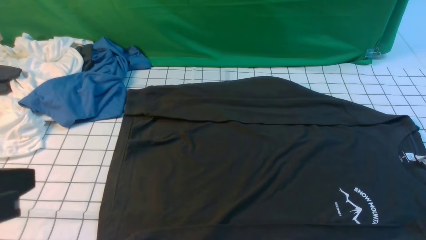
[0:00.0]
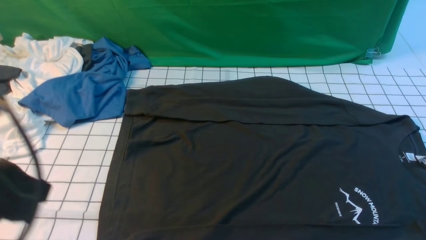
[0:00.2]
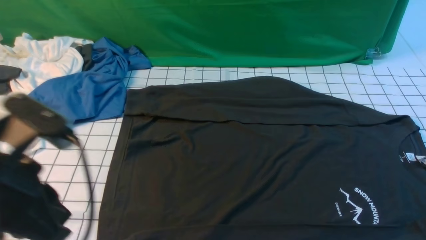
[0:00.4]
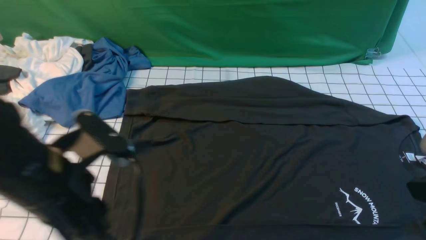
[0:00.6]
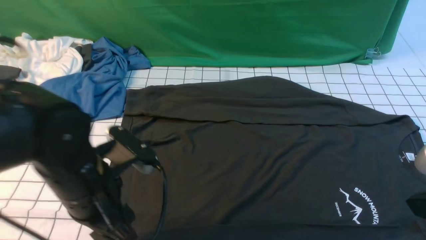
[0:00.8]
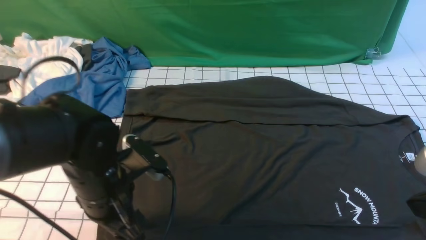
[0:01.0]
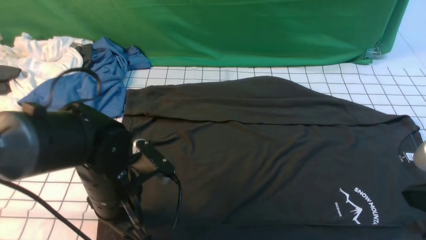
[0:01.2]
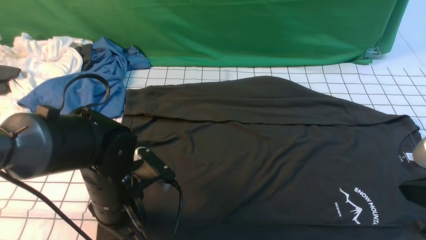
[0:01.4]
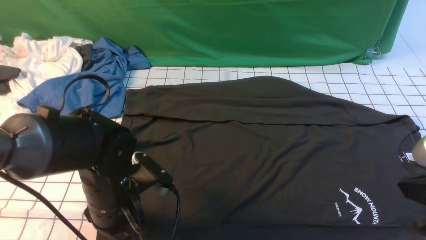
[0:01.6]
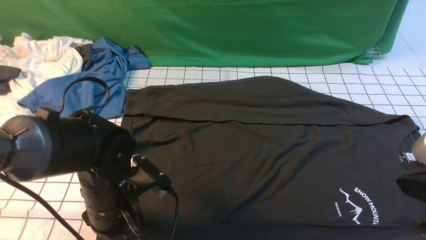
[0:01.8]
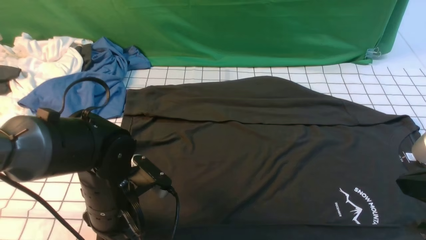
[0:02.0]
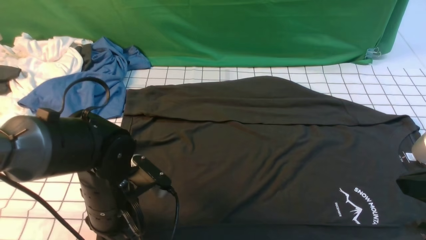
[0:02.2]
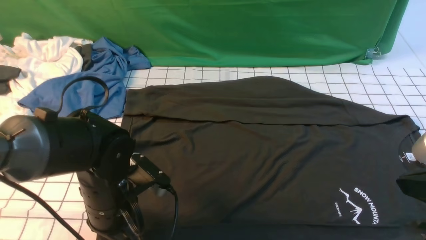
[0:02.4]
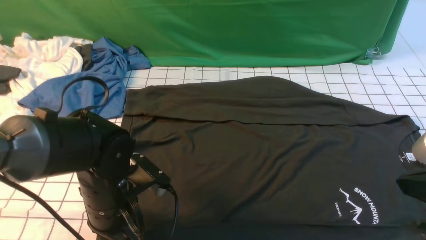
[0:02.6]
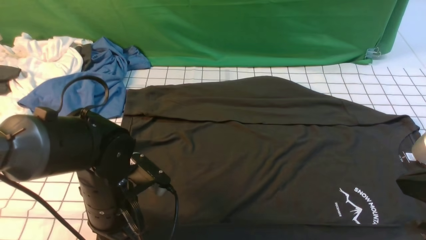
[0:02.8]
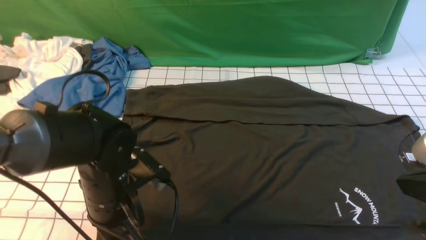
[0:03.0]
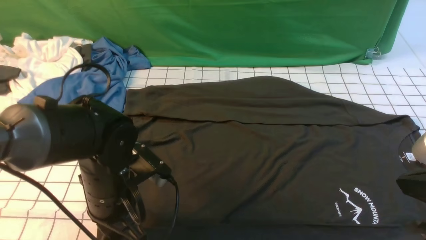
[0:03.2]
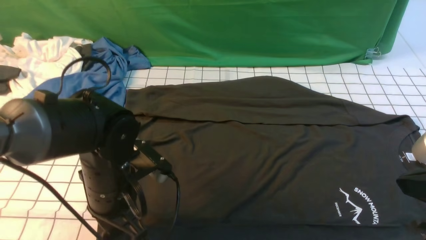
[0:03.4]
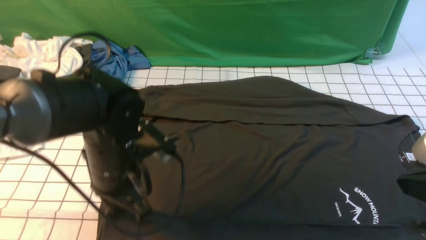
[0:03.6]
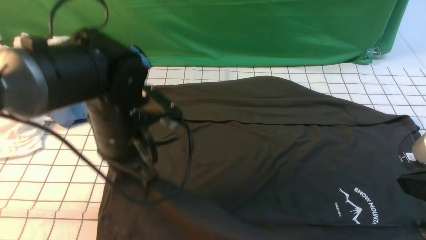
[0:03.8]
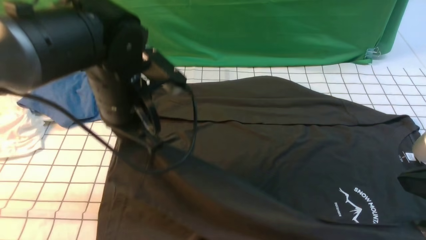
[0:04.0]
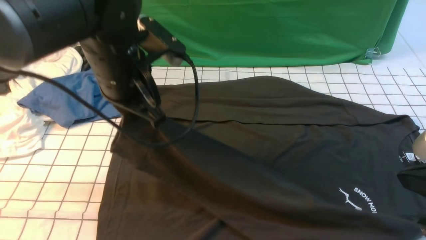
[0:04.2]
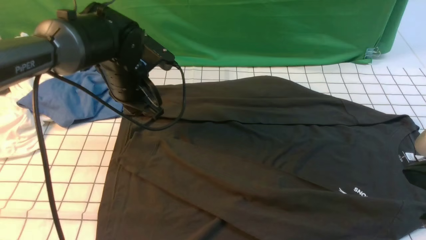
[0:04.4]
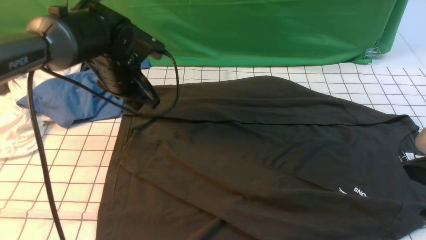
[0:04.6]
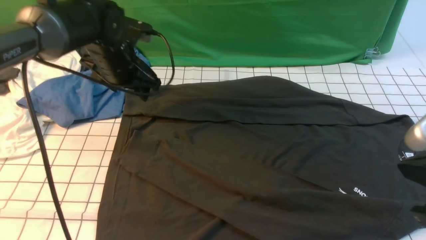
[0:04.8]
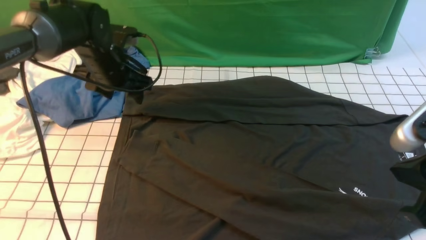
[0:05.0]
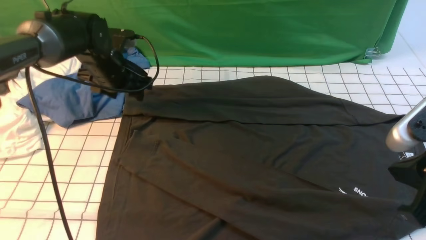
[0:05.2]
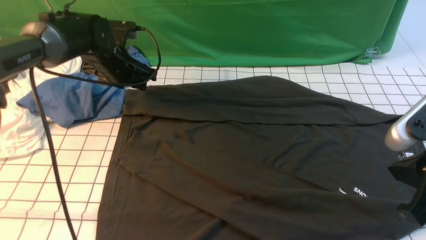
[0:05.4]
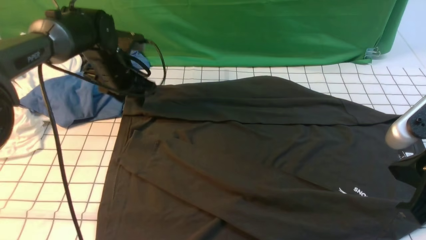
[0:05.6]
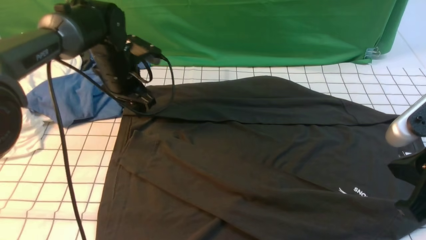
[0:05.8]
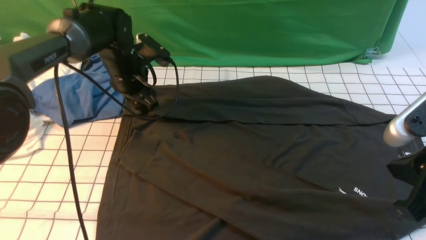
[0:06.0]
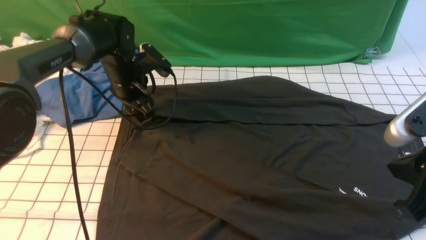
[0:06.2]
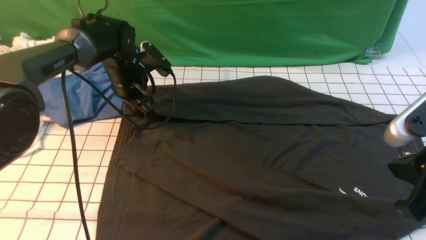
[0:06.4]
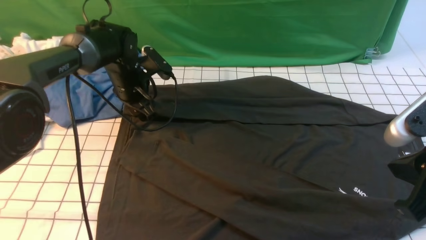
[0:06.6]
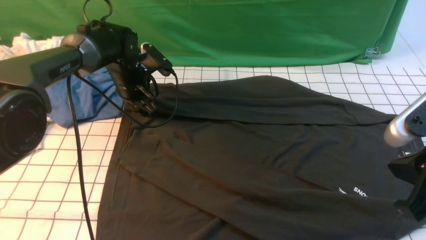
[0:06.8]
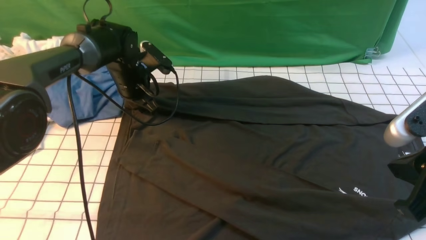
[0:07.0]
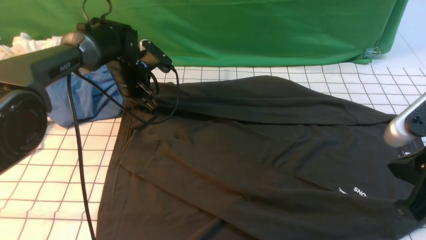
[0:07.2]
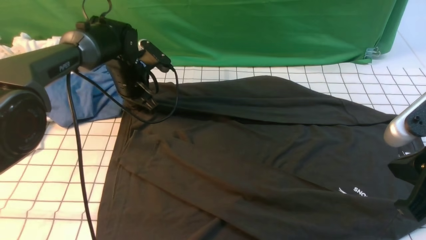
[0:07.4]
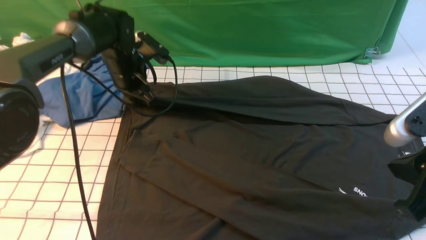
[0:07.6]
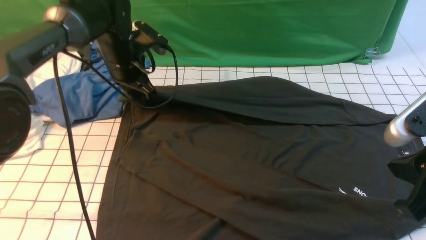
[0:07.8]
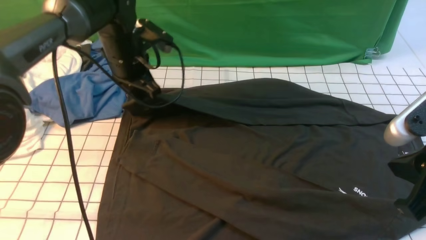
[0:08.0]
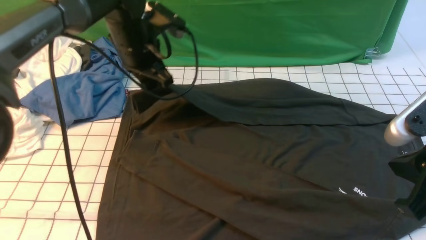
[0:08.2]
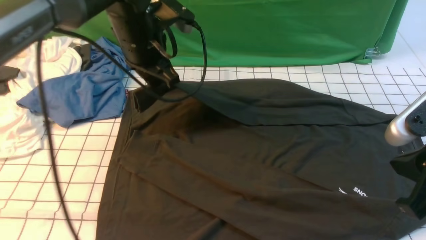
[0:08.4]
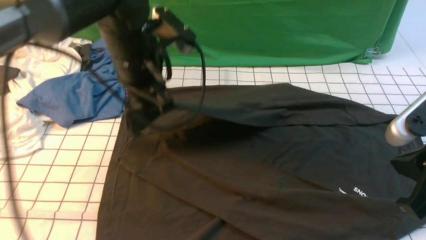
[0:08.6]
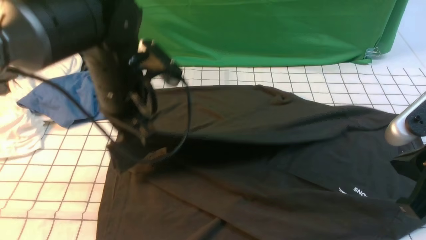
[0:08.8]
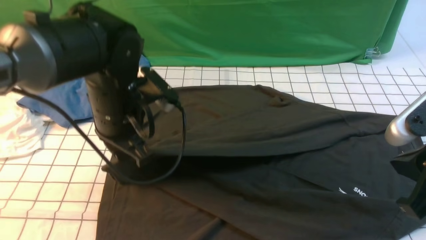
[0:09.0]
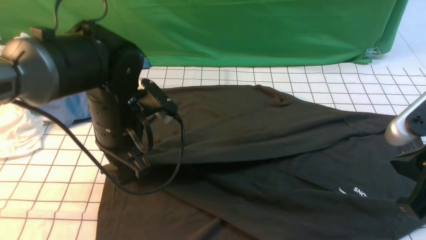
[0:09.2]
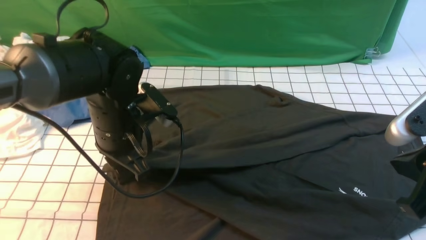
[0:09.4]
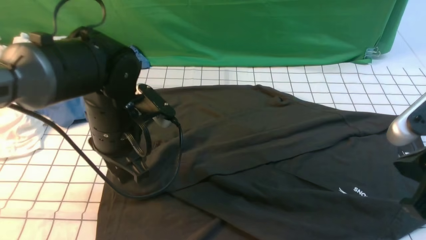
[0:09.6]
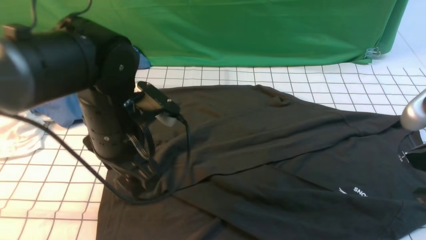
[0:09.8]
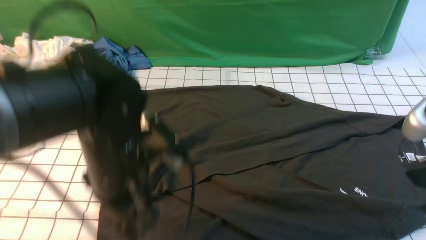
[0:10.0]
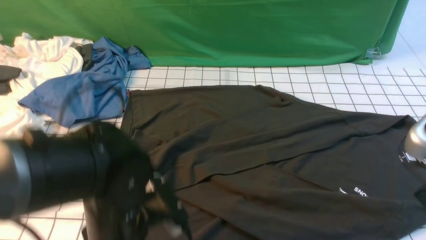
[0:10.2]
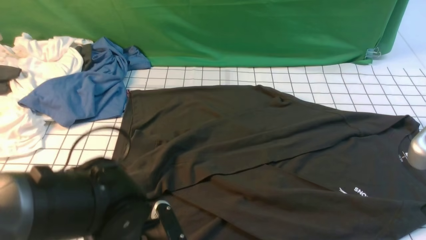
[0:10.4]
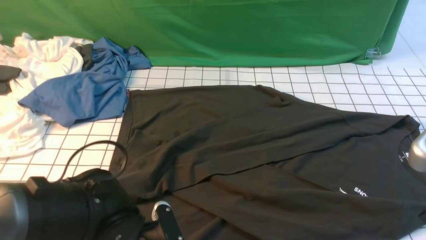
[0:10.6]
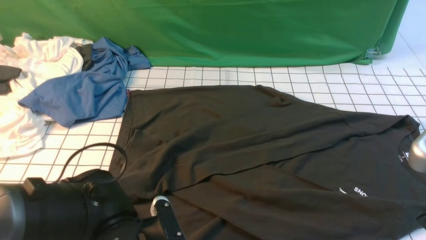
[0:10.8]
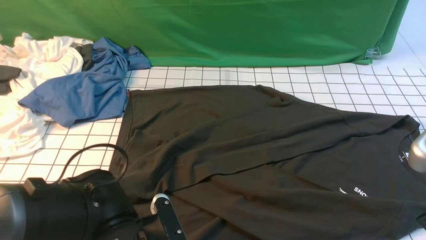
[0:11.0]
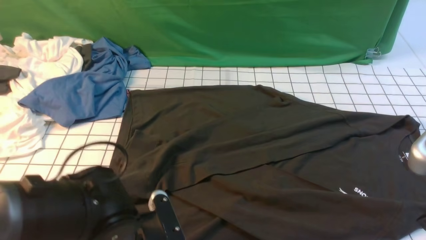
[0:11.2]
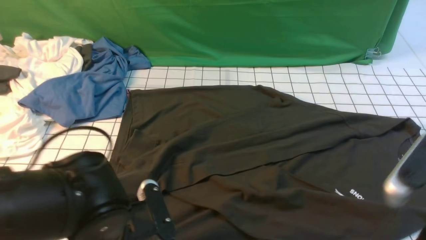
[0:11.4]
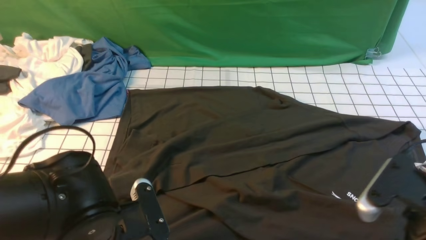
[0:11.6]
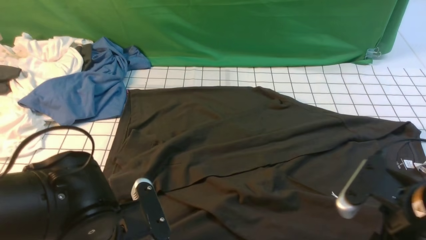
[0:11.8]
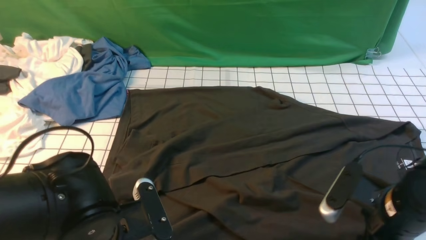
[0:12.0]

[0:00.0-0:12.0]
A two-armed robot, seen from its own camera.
Step, 0:00.0 to 0:03.4: use the left arm to clamp the cuff closest to it.
Step, 0:03.6 to 0:05.0: use the left arm to drag and place the cuff at the centered position on the left edge of the fabric.
Step, 0:05.2 to 0:07.6: use the left arm to clamp the cuff farthest from it.
Step, 0:07.8 to 0:09.6: use the left arm to drag and drop the cuff onto the cuff closest to the left arm.
0:00.0 to 0:01.6: The right gripper travels to the left by approximately 5 cm. The left gripper heads downward, forward and to the right, covering roughly 25 cm, and opens its fingers.
0:01.6 to 0:03.0: The left gripper closes its fingers.
0:03.0 to 0:04.4: The left gripper shifts some 15 cm forward and upward.
0:04.4 to 0:06.0: The left gripper heads forward and downward, covering roughly 10 cm, and opens its fingers.
0:06.0 to 0:07.6: The left gripper closes its fingers.
0:07.6 to 0:09.0: The left gripper shifts roughly 15 cm backward.
0:09.0 to 0:10.4: The left gripper heads backward and downward, covering approximately 20 cm, and opens.
0:10.4 to 0:12.0: The left gripper closes. Meanwhile the right gripper heads downward and forward, covering some 15 cm, and opens.

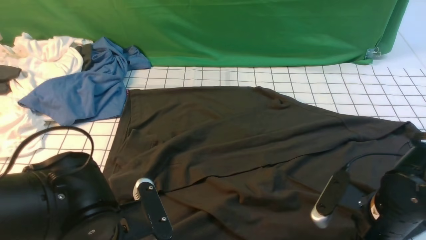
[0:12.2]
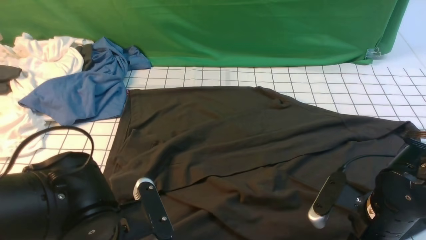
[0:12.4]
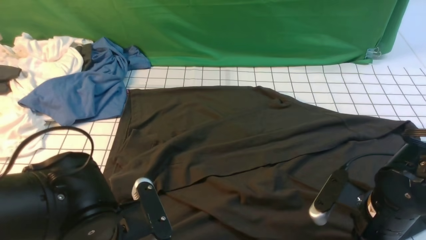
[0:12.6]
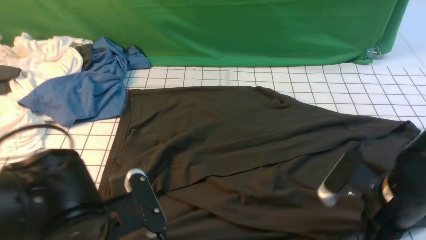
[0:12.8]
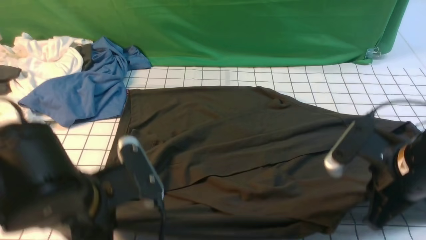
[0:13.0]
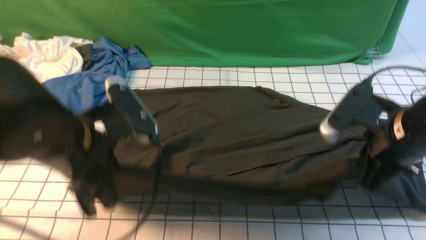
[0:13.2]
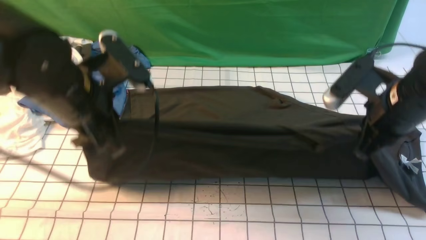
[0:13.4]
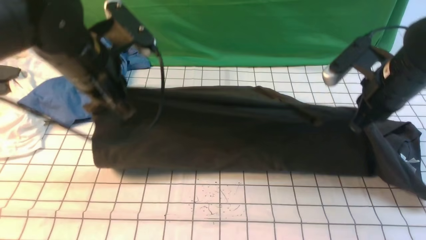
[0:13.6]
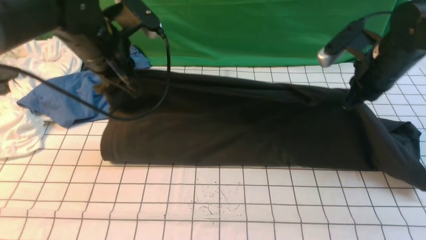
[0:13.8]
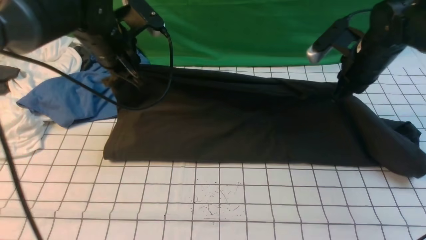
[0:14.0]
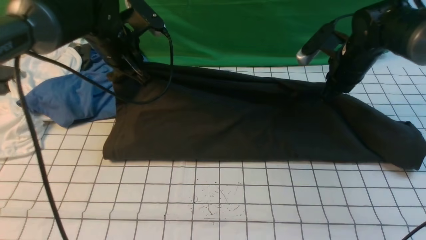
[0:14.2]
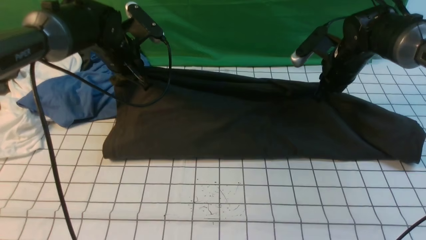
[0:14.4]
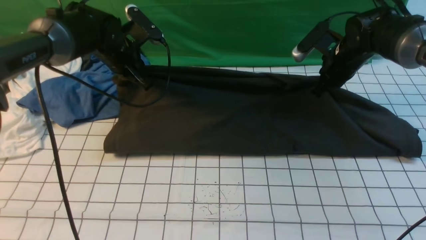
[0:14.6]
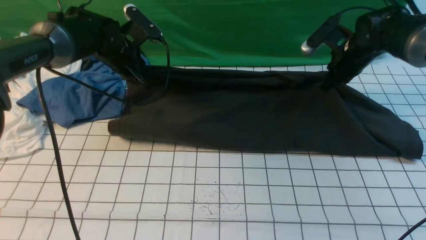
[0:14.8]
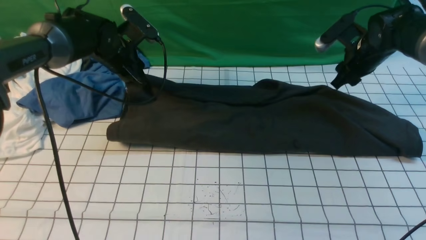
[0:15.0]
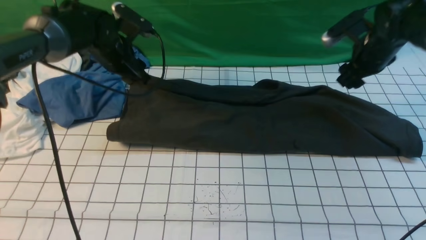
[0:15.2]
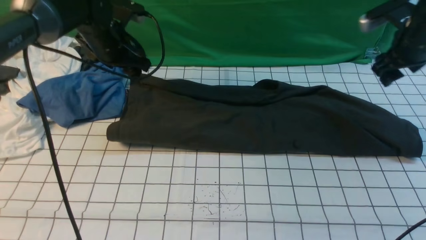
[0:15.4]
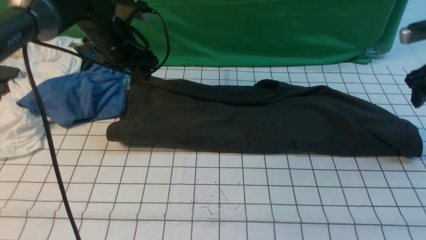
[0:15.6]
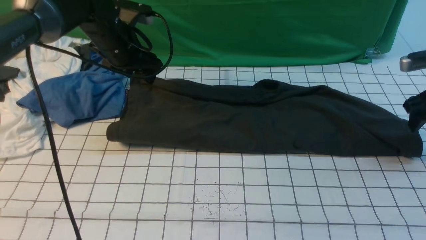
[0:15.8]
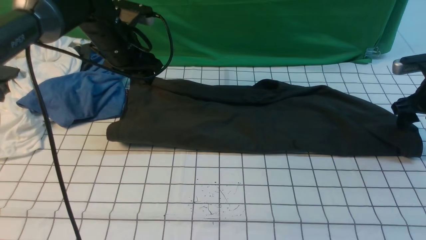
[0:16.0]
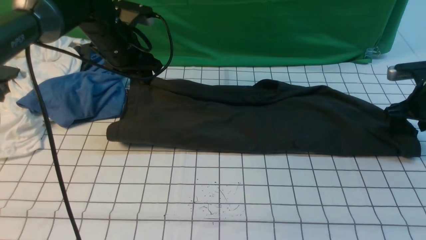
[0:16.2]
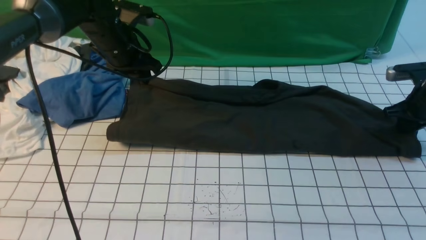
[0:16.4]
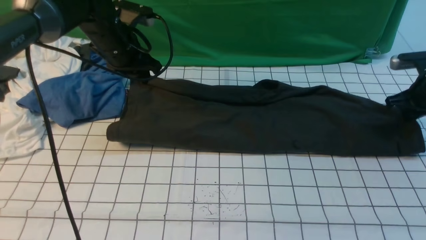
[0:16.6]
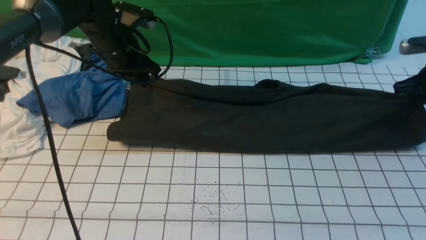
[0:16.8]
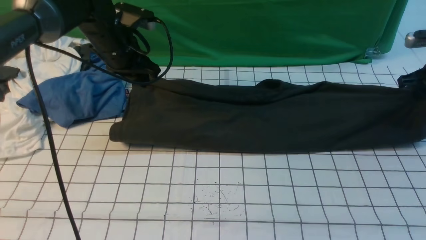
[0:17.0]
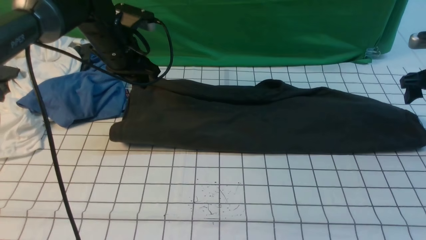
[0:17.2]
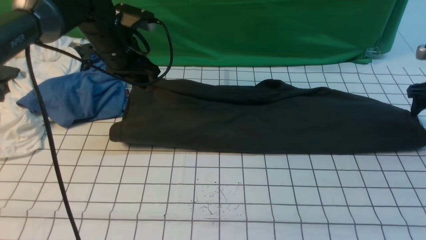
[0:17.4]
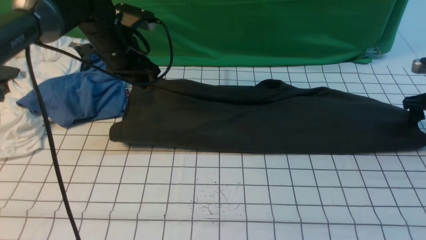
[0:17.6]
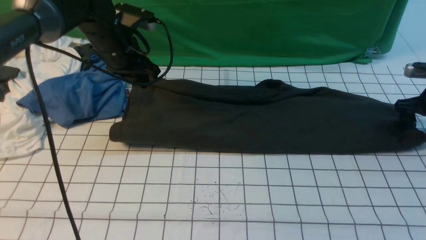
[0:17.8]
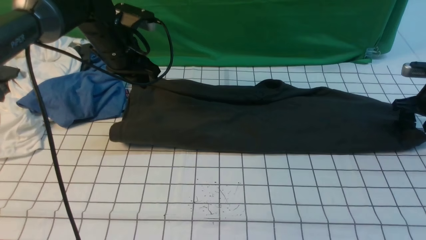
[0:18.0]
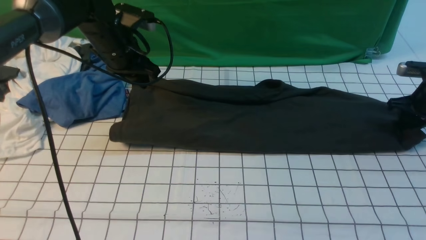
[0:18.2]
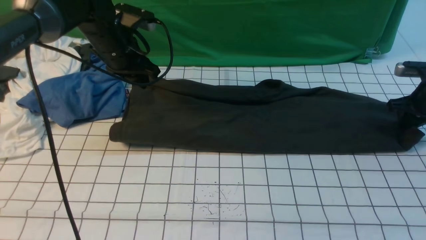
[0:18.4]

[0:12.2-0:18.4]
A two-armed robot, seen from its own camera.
Step, 0:13.0 to 0:15.2: use both arms to drag the lower edge of the fabric forward and fold it over the upper edge.
0:12.2 to 0:13.8: The grippers both shift forward and upward by roughly 25 cm. The right gripper closes its fingers.
0:13.8 to 0:15.4: The left gripper heads forward and downward, covering about 10 cm, and opens its fingers, while the right gripper moves to the right and forward, approximately 10 cm, and opens.
0:15.4 to 0:16.8: The left gripper closes its fingers, while the right gripper moves to the right and downward, roughly 10 cm, and closes.
0:16.8 to 0:18.4: The right gripper opens, then closes again.
